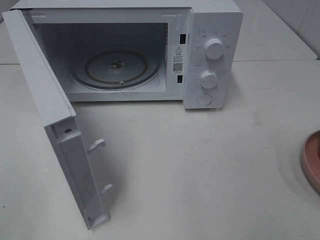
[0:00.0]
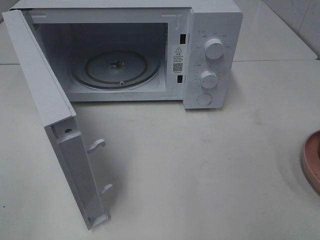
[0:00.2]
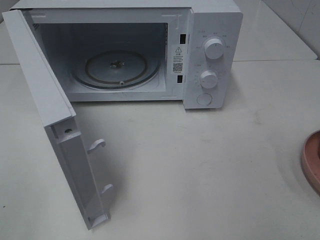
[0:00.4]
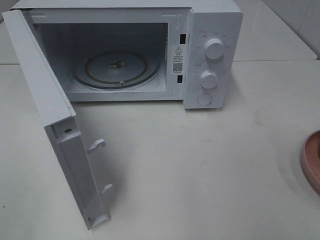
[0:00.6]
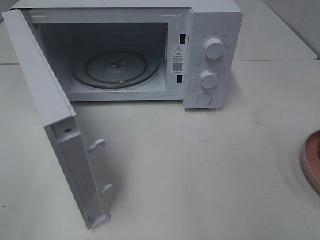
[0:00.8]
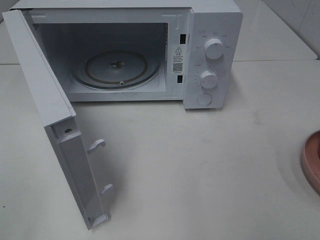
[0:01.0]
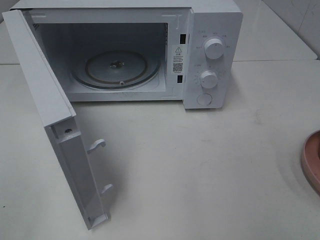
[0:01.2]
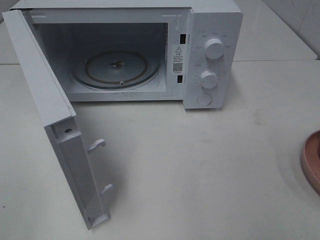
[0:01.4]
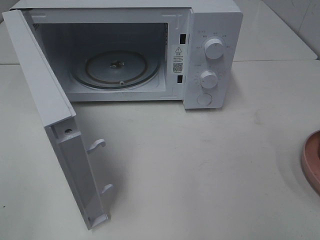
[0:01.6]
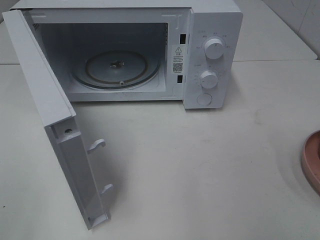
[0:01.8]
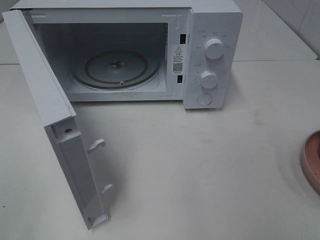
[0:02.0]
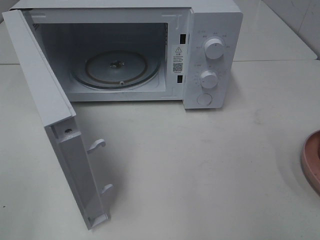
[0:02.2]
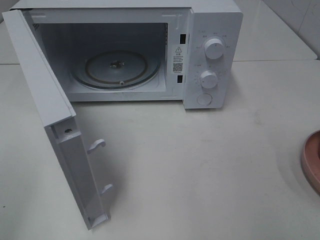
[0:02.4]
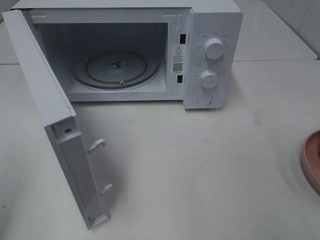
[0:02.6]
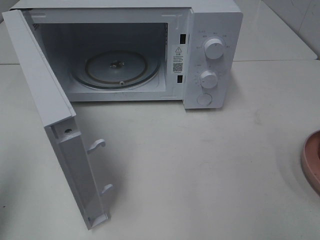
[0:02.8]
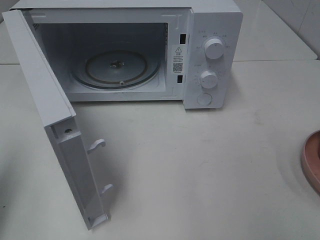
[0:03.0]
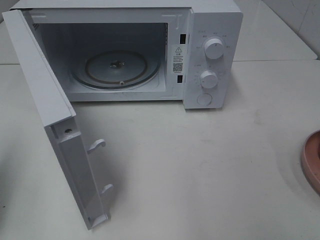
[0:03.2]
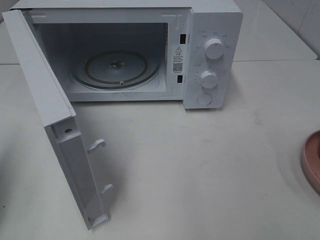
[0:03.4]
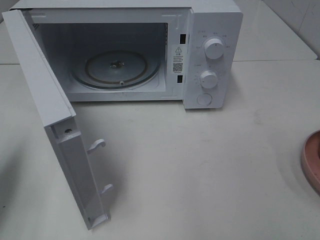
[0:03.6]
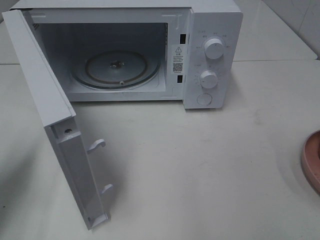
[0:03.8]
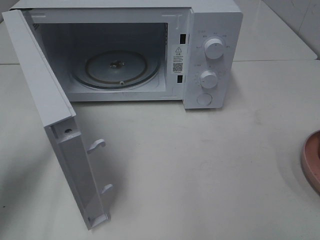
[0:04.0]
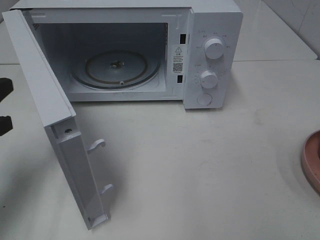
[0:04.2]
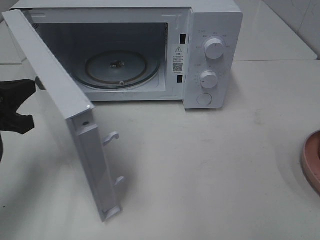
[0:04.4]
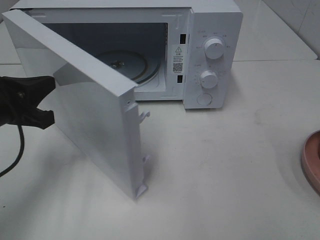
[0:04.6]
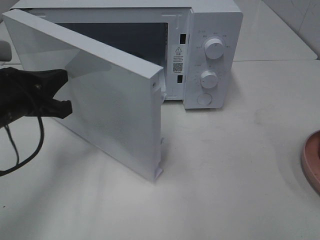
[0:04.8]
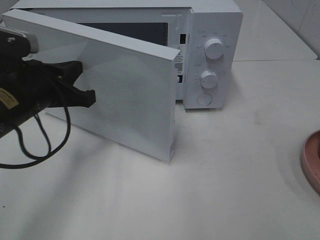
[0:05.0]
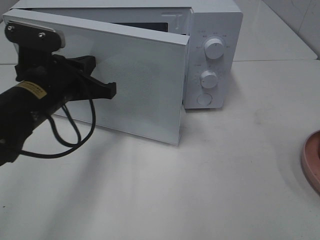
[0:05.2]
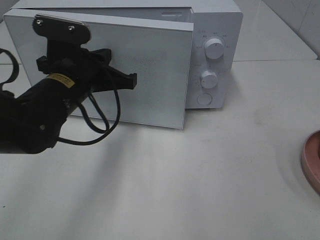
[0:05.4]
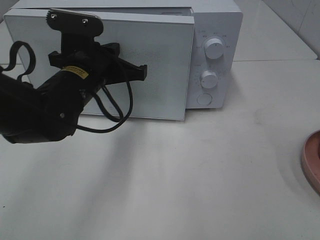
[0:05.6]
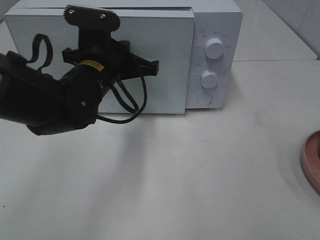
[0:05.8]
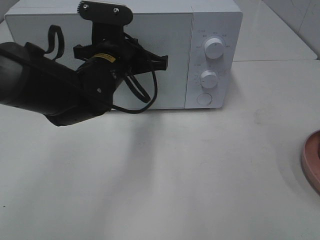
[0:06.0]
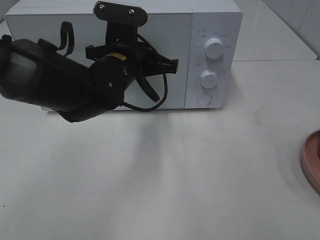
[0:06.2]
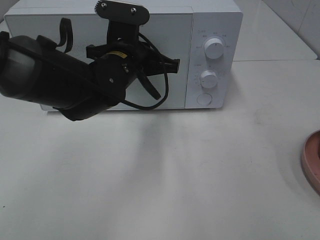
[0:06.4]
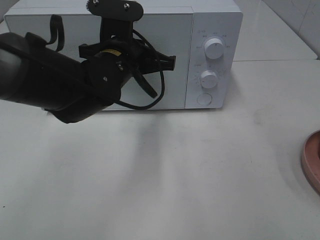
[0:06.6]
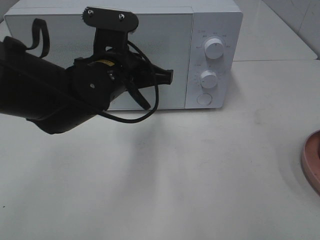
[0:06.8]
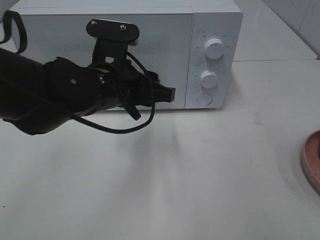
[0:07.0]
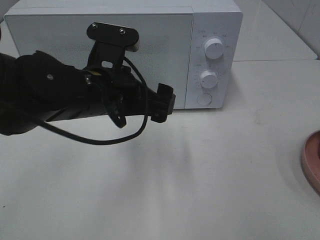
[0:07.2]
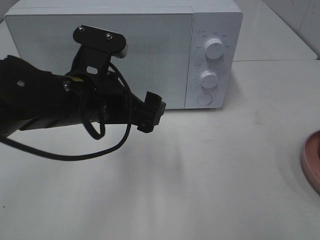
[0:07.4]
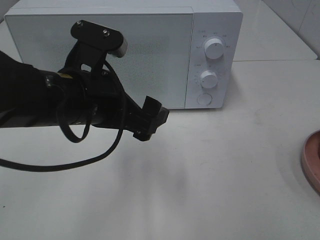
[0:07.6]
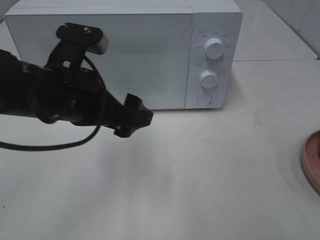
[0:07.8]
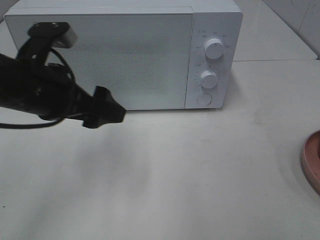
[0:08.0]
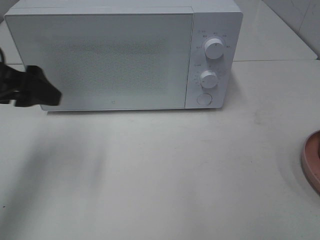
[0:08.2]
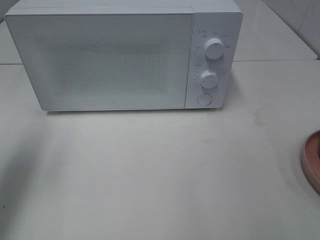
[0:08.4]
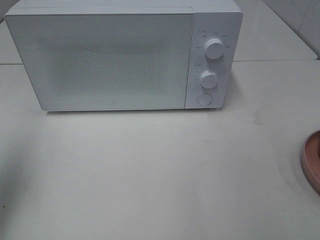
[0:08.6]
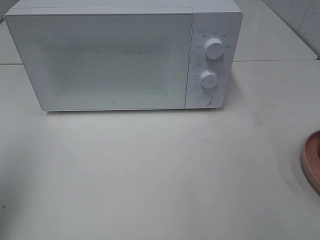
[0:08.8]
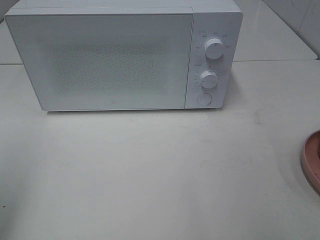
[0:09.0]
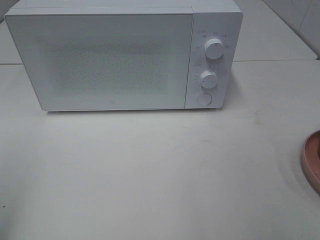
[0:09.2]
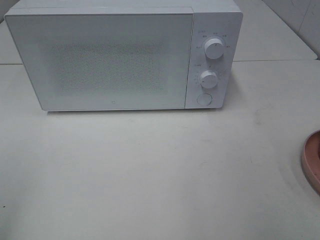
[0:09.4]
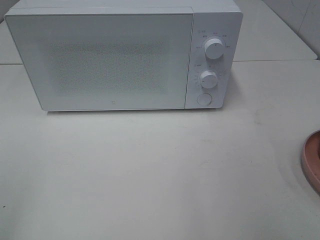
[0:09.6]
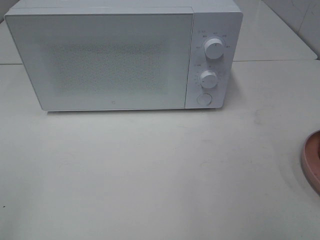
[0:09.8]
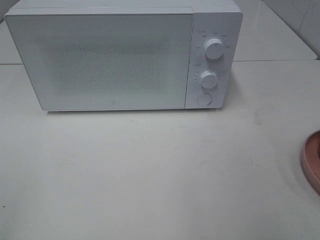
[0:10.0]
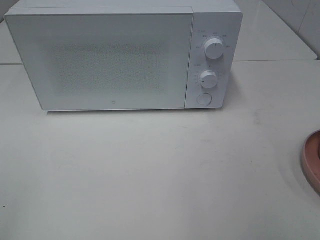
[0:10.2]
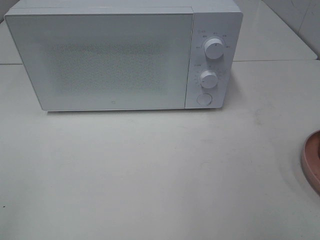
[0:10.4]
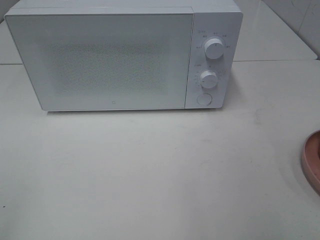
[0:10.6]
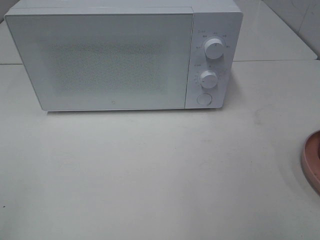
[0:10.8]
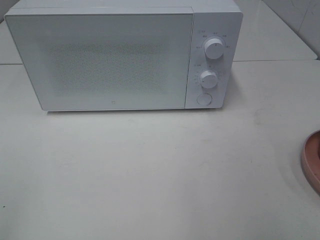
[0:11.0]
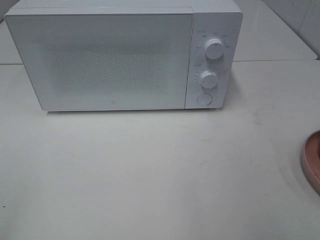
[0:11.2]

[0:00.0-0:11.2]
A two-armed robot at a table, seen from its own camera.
Task of the whole recording: Heat the burger.
Step, 0:00.0 to 0:06.8: Left hand: close the microwave door.
0:00.0 to 0:01.6: Neither gripper changes place.
0:01.6 to 0:03.2: The left gripper moves forward, some 15 cm, and closes.
0:03.2 to 0:04.8: The left gripper shifts about 20 cm to the right, forward and downward.
0:04.8 to 0:06.4: The left gripper is displaced to the right and forward by roughly 20 cm.
0:06.4 to 0:08.0: The left gripper is displaced to the left and backward by approximately 15 cm, and opens.
0:08.0 to 0:09.6: The left gripper is displaced backward and to the left by some 25 cm.

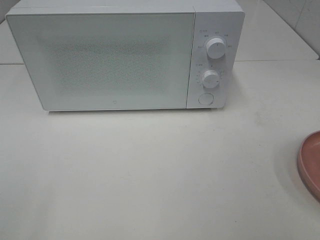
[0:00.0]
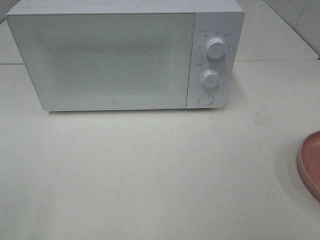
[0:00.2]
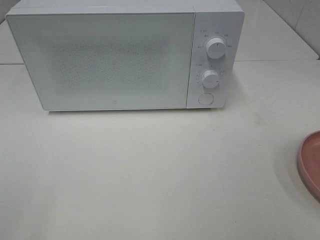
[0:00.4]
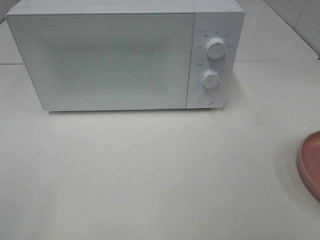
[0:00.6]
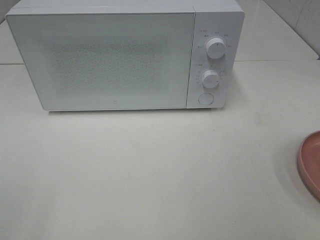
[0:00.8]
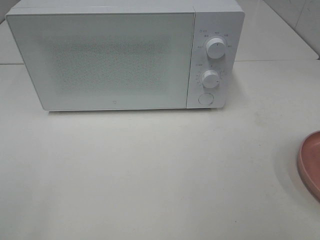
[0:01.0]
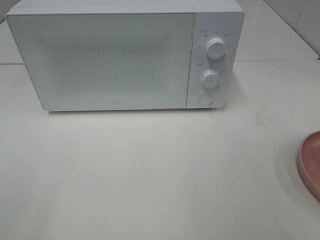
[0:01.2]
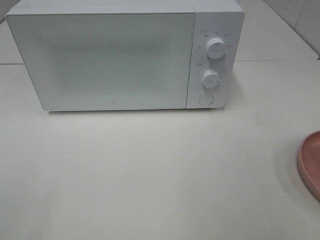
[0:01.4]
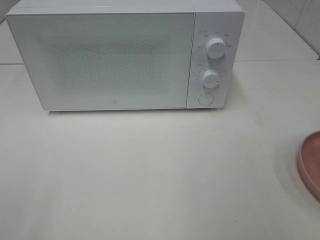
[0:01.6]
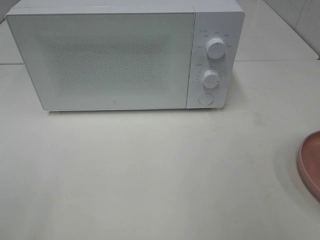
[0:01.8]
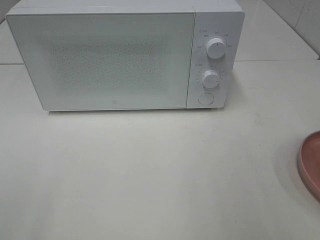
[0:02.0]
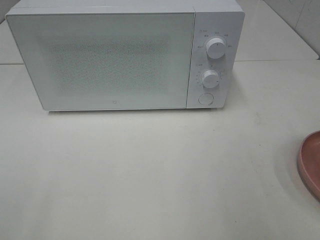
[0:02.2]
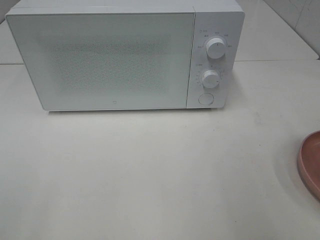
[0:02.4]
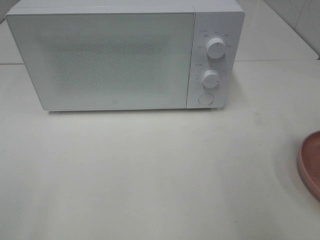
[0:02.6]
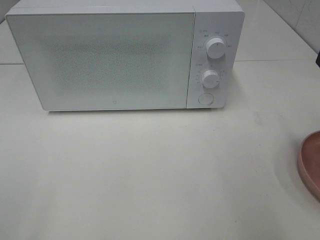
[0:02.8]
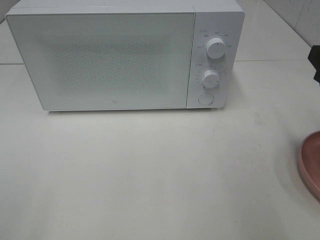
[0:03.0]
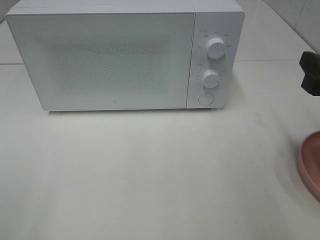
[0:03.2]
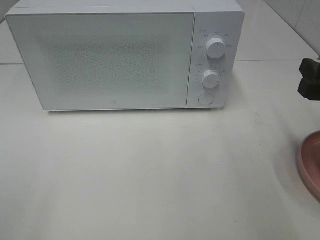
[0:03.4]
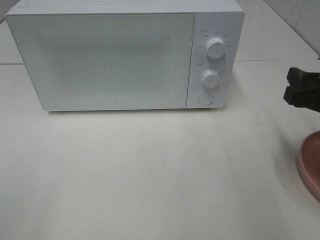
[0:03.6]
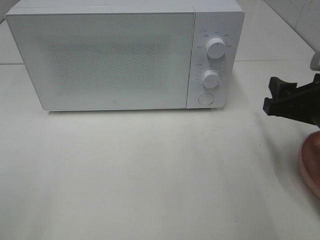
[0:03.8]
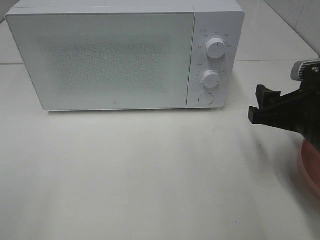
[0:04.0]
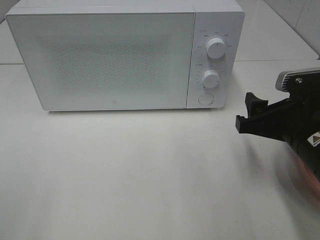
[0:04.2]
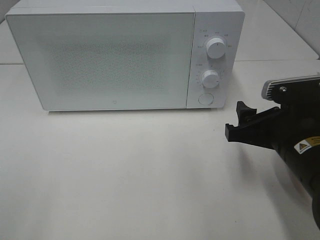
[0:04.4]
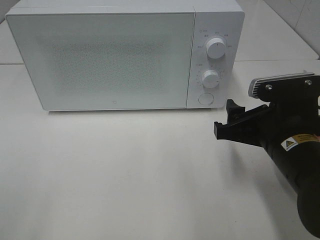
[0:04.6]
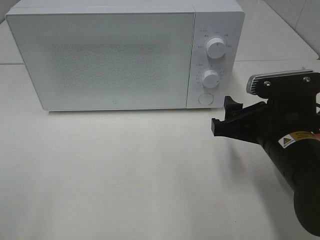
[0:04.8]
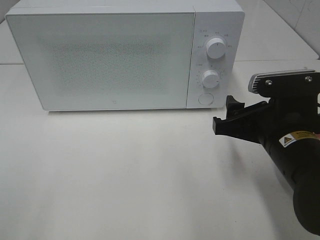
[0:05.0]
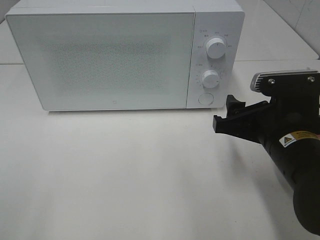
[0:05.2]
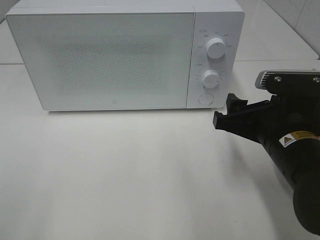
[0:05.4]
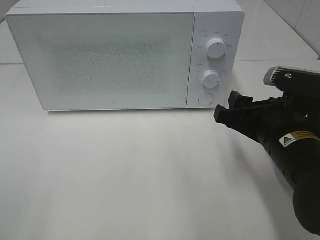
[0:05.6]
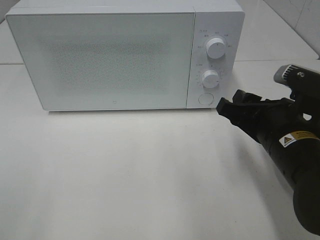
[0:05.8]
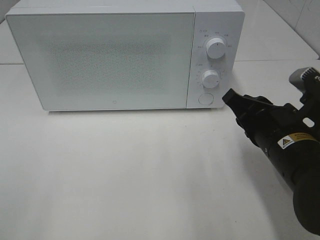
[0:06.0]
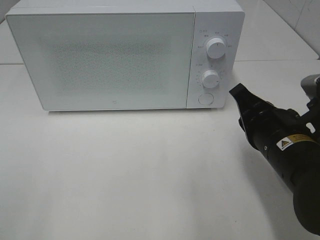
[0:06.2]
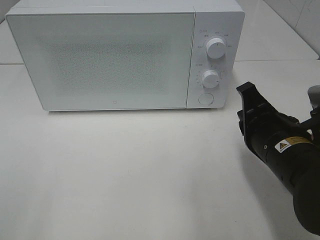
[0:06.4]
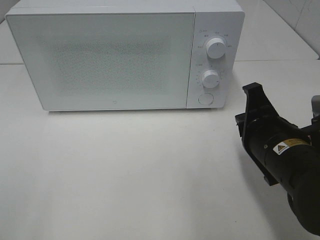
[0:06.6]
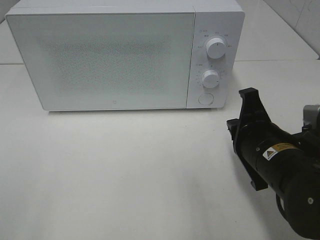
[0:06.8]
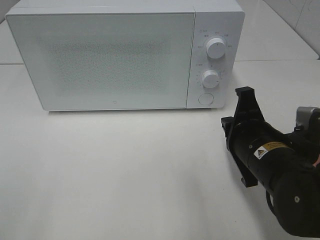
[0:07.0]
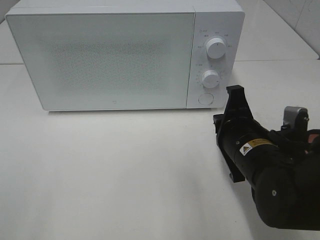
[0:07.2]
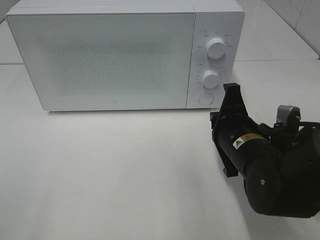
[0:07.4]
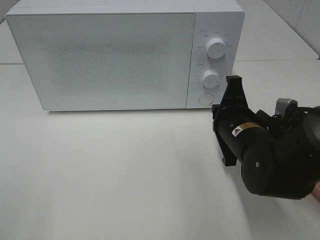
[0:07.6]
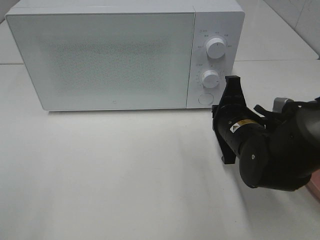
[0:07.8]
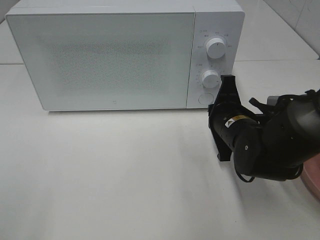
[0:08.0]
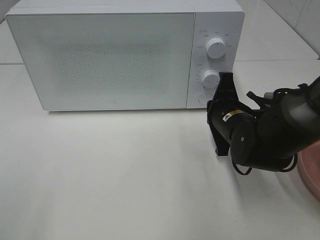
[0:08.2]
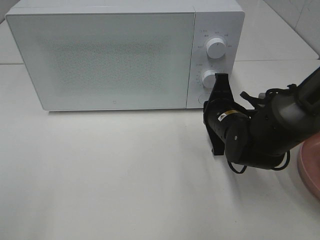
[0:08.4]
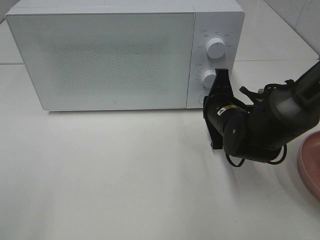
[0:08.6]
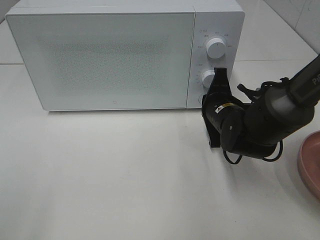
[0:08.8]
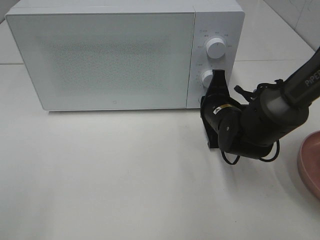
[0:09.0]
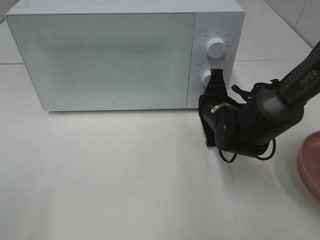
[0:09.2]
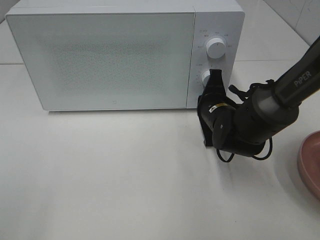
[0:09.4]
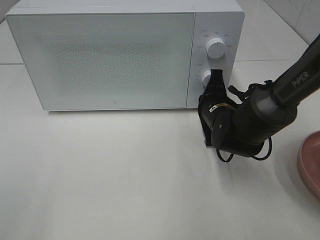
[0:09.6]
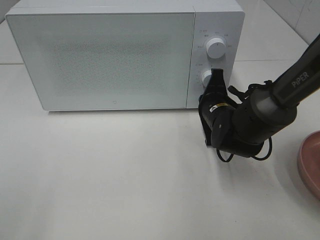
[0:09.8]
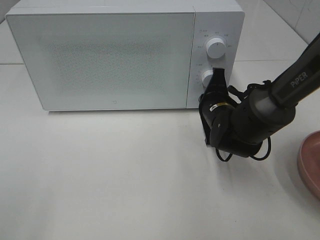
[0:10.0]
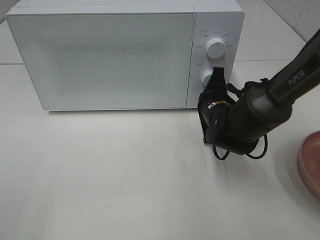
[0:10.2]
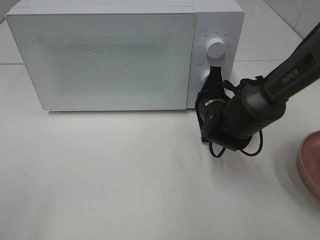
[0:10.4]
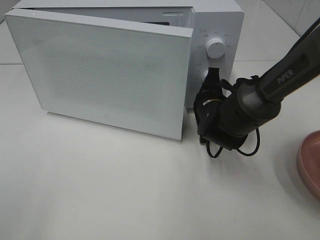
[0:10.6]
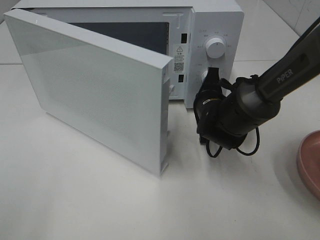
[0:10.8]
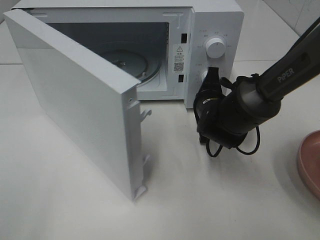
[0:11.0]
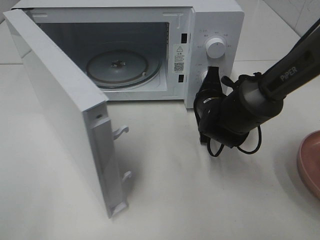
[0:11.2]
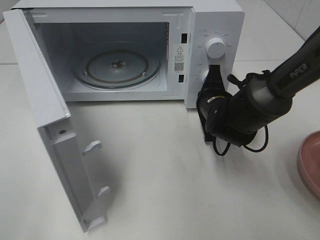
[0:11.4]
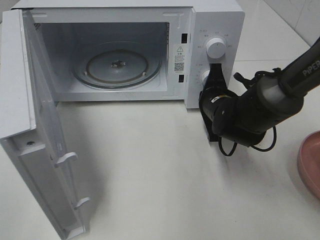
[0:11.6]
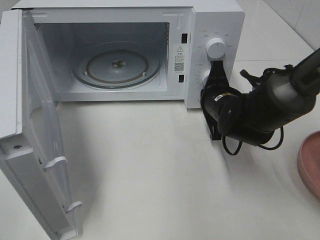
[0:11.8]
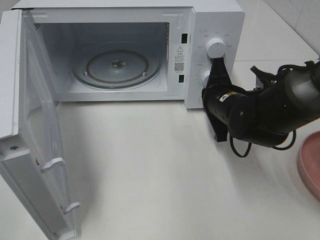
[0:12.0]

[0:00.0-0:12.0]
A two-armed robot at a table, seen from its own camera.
Task of the whole recording: Heat the burger.
Step, 0:00.0 to 0:11.8: Right hand: press the switch.
0:03.0 to 0:04.4: The right gripper travels to the left and downward by about 10 cm.
0:04.4 to 0:06.0: The right gripper closes its fingers.
0:06.0 to 0:07.6: The right gripper travels forward by approximately 5 cm.
0:07.6 to 0:09.0: The right gripper goes approximately 5 cm forward.
0:09.0 to 0:10.4: The grippers move only a little.
0:10.4 to 0:12.0: The right gripper moves approximately 5 cm.
